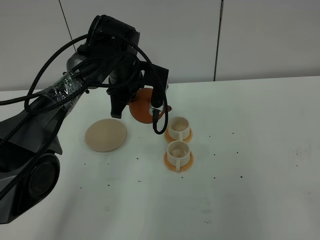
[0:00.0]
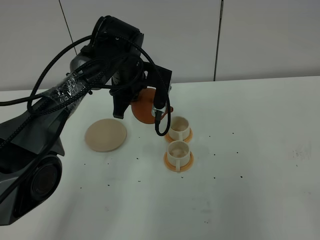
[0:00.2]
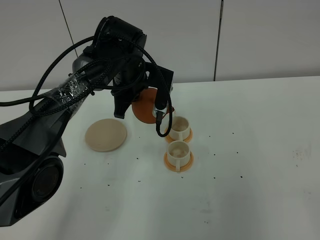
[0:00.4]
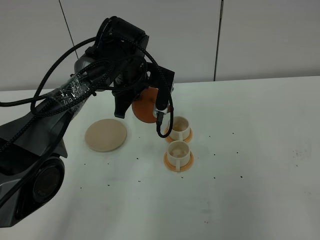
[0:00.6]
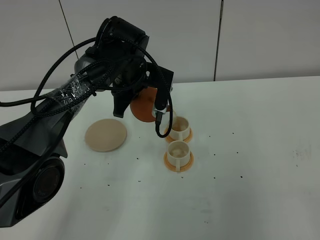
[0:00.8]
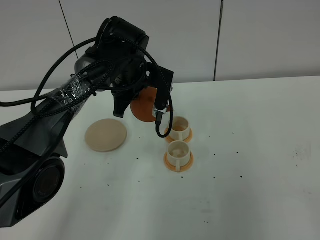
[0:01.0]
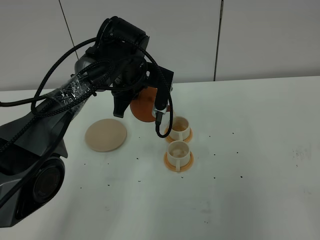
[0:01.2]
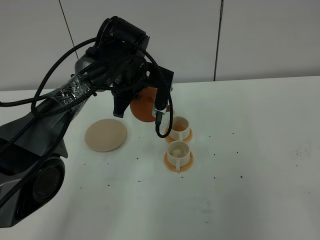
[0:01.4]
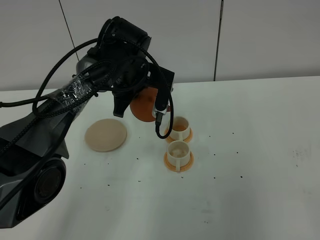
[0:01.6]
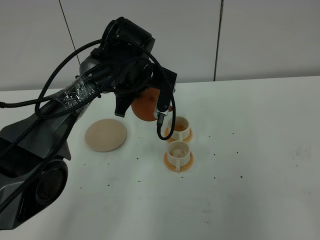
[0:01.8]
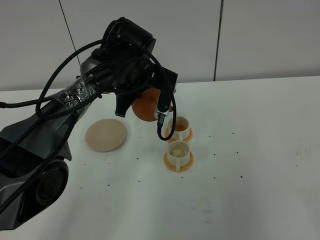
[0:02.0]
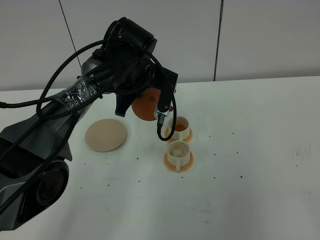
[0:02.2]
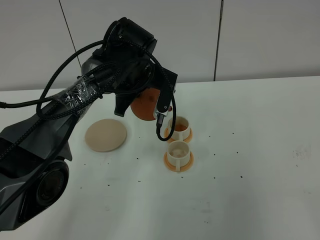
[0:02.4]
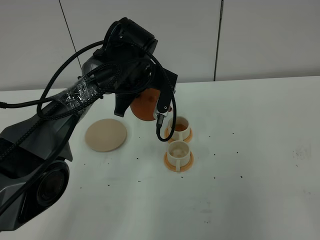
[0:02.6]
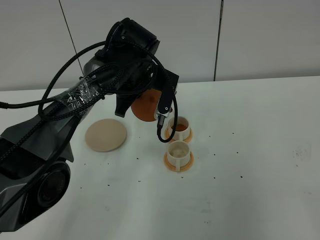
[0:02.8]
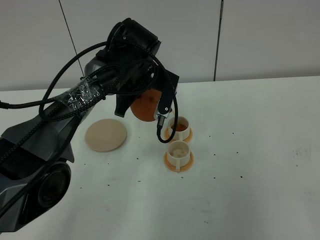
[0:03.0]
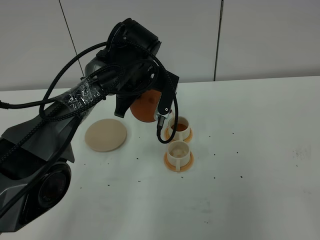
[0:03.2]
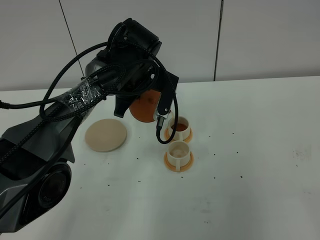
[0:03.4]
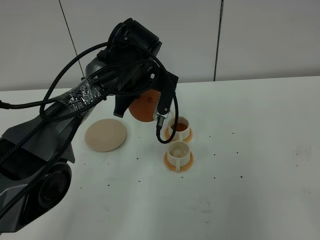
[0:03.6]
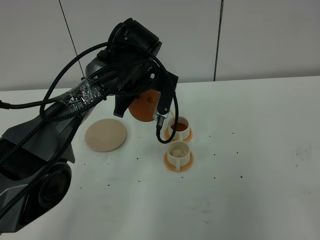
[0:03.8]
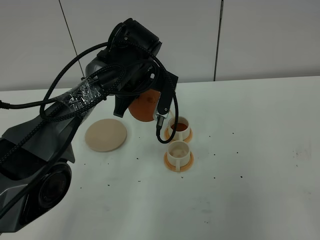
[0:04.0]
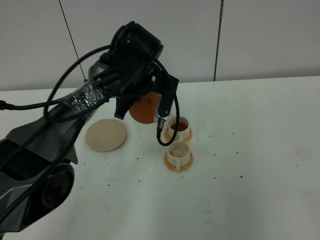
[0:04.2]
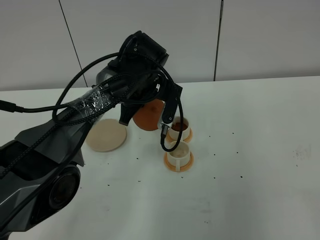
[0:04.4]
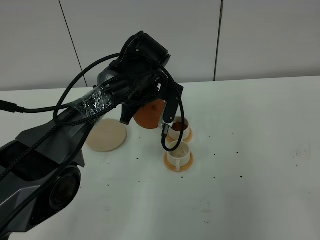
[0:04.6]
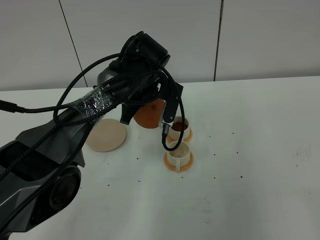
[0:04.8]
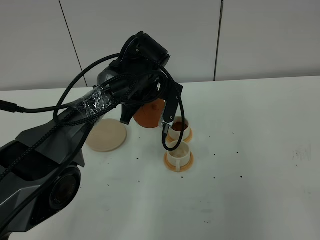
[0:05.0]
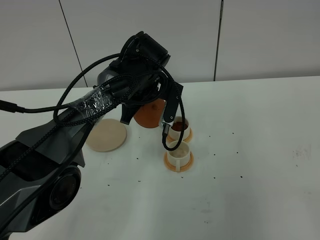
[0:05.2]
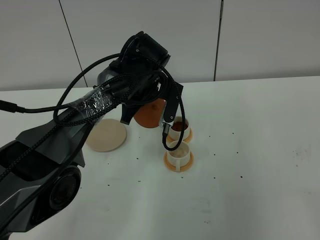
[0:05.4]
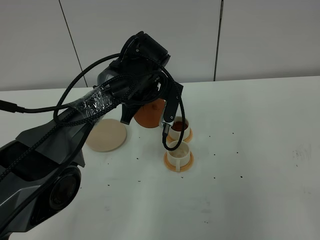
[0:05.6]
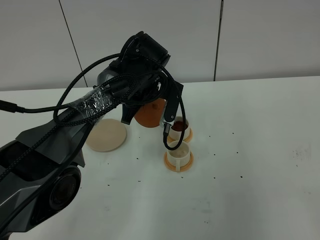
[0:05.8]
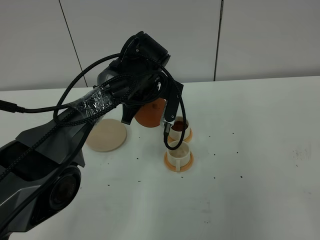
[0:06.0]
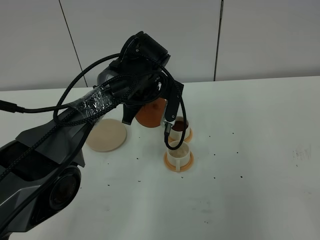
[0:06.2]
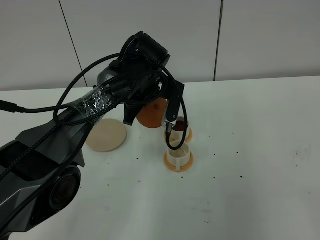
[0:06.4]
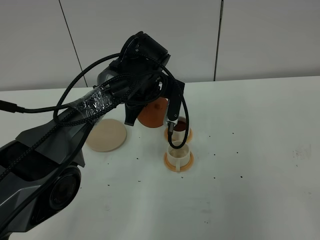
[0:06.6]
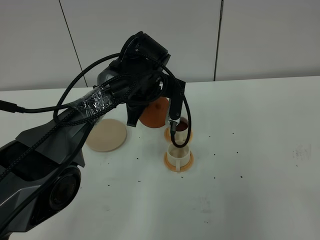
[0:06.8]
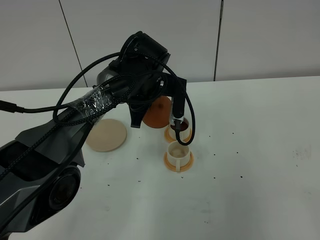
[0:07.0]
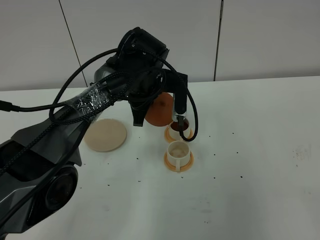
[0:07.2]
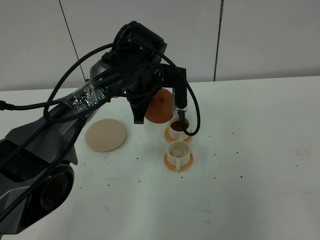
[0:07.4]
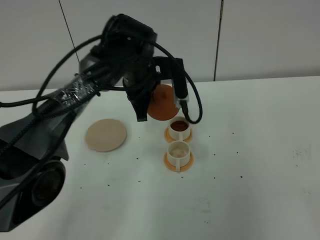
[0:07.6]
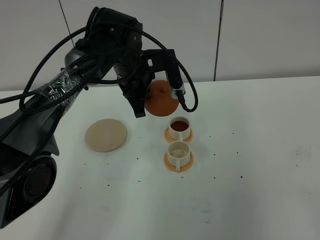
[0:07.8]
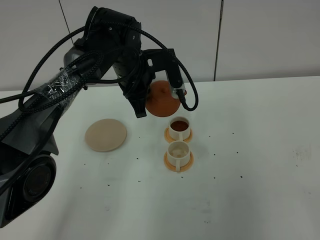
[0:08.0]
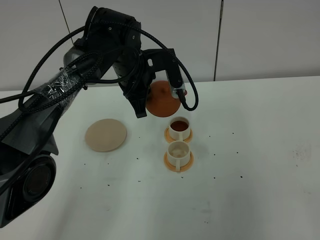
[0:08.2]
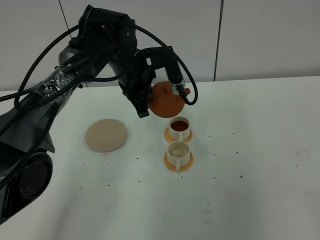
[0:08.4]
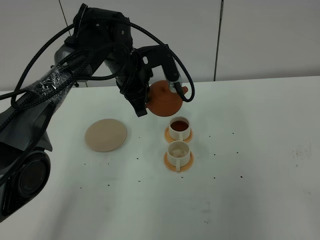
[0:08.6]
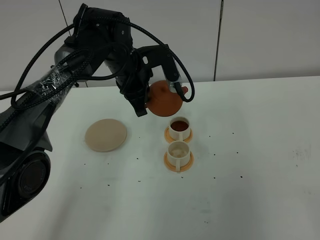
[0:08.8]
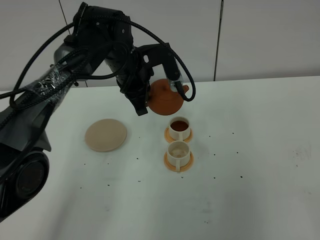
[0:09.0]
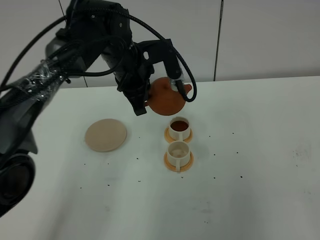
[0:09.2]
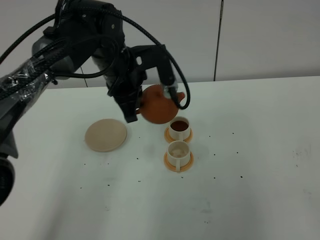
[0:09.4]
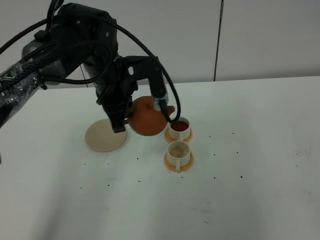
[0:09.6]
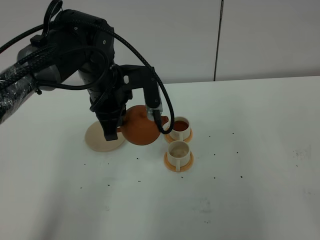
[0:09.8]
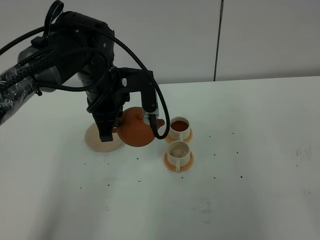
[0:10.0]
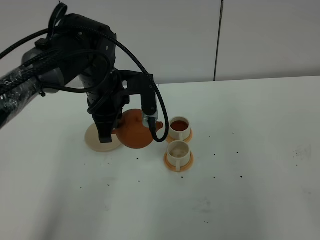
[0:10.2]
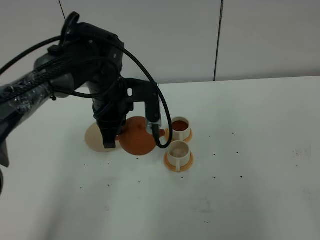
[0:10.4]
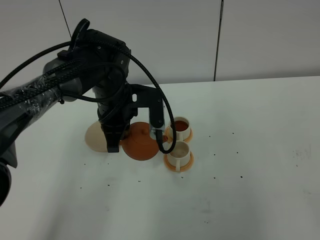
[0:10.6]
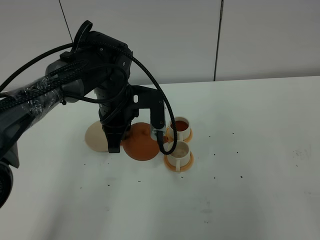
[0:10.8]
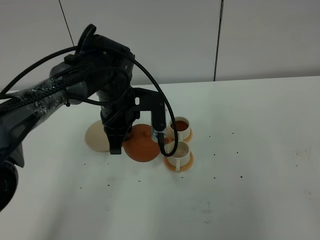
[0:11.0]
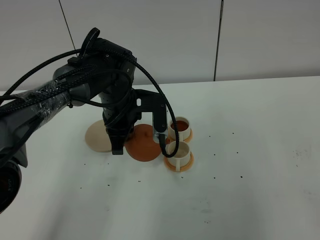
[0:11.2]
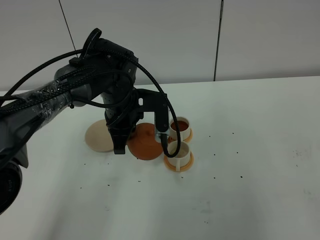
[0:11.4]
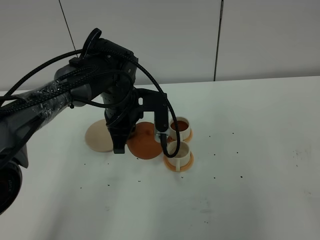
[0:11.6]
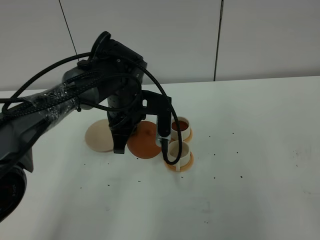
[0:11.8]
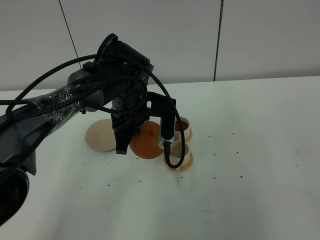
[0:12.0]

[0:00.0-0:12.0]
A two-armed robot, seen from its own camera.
Task of the whole recording: grasp the brown teapot and pour the tea into the two white teacups one by one, put the brown teapot back in its original place.
Step, 0:00.0 to 0:08.6: Pour tea into the teacup with the left gripper.
0:00.0 to 0:01.6: There are only small adjustments of the grippers.
0:01.6 to 0:03.0: The two grippers keep their place.
0:03.0 to 0:04.4: The grippers make only small movements.
0:04.4 to 0:06.0: Neither gripper changes place.
0:07.6 to 0:09.0: There are only small adjustments of the grippers.
0:09.0 to 0:10.4: The left gripper moves backward, roughly 5 cm.
0:10.4 to 0:12.0: There are only small adjustments of the grippers.

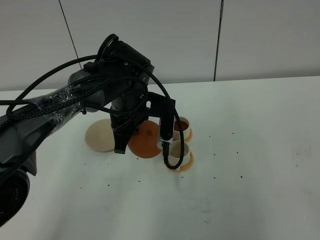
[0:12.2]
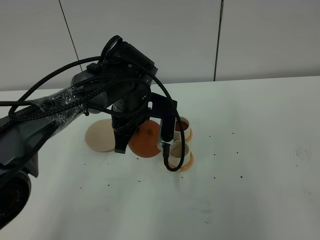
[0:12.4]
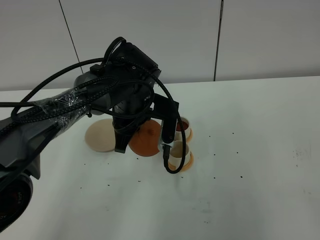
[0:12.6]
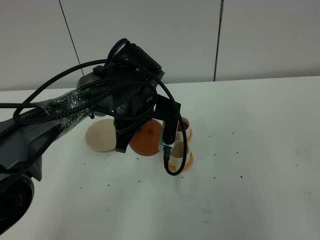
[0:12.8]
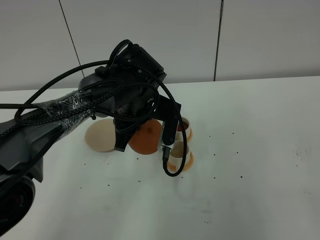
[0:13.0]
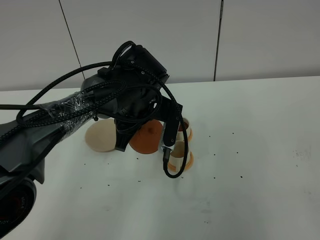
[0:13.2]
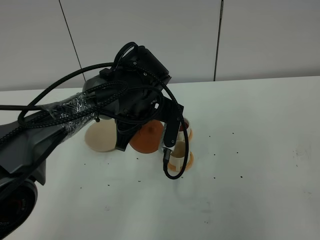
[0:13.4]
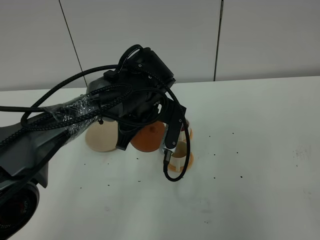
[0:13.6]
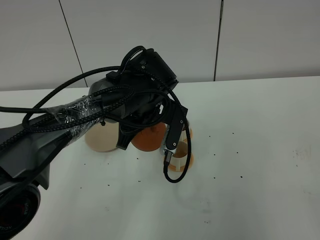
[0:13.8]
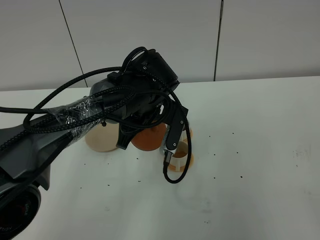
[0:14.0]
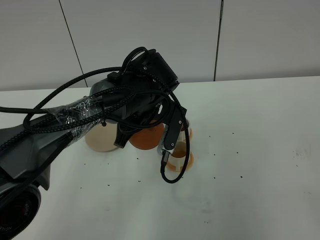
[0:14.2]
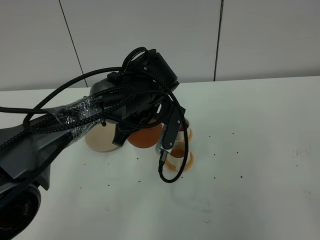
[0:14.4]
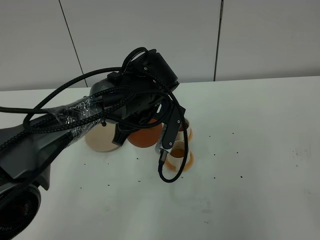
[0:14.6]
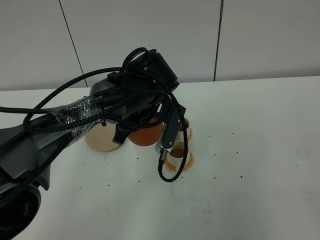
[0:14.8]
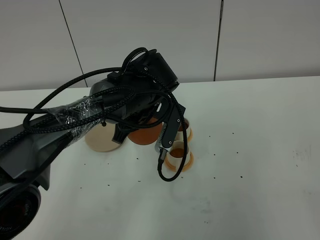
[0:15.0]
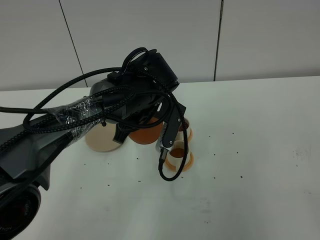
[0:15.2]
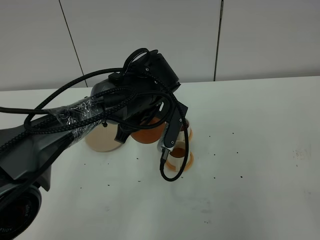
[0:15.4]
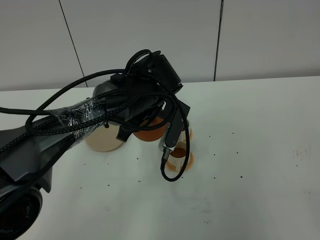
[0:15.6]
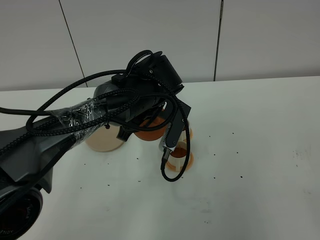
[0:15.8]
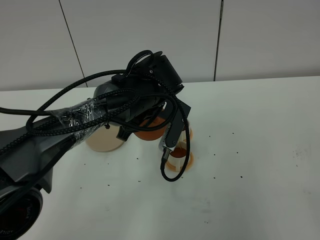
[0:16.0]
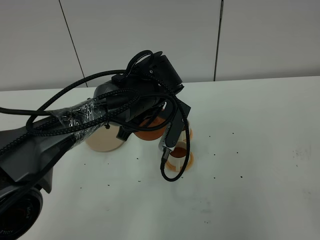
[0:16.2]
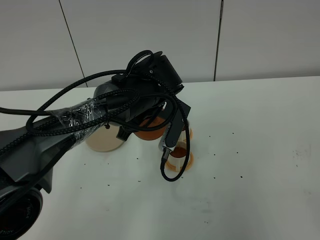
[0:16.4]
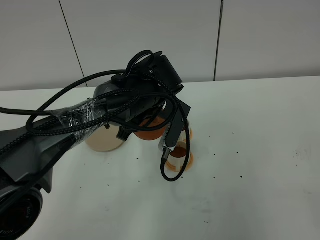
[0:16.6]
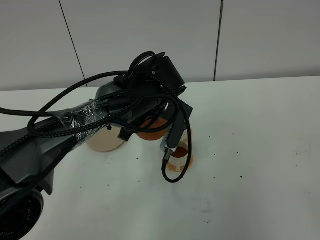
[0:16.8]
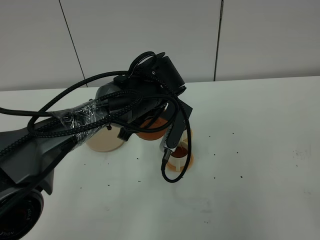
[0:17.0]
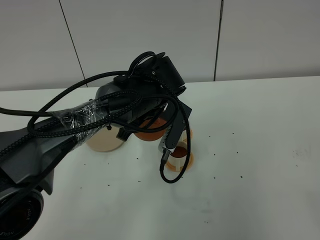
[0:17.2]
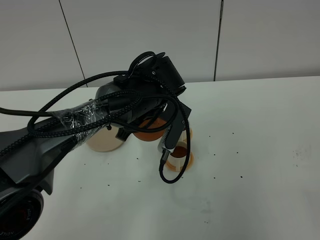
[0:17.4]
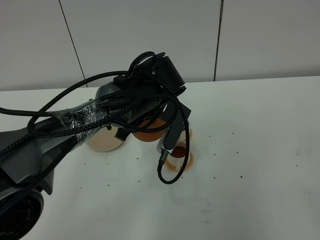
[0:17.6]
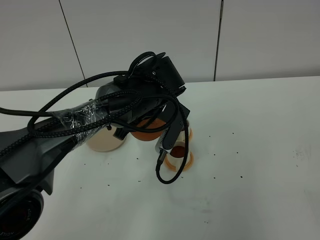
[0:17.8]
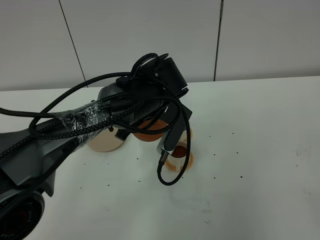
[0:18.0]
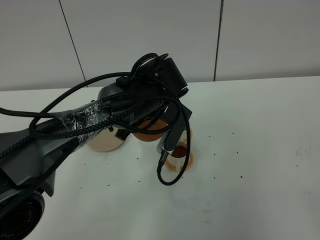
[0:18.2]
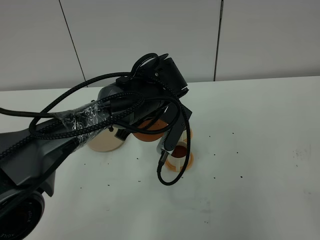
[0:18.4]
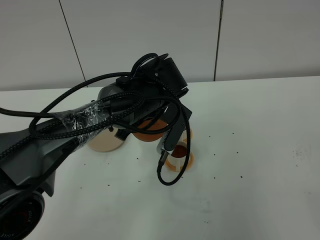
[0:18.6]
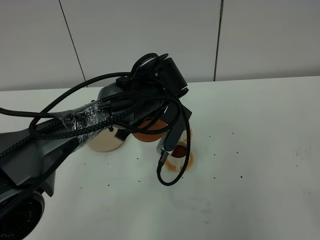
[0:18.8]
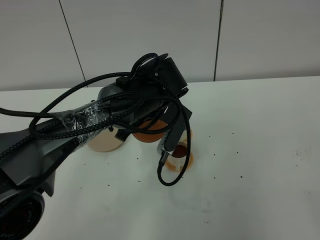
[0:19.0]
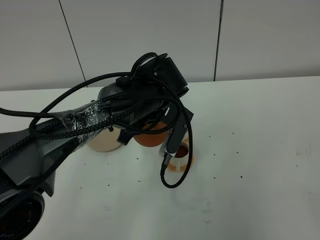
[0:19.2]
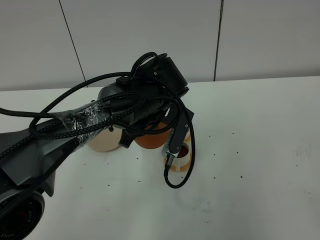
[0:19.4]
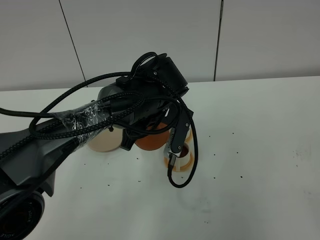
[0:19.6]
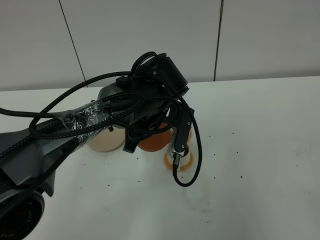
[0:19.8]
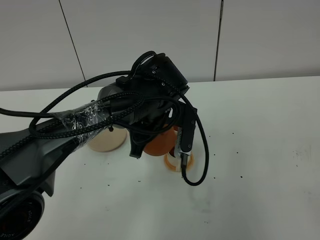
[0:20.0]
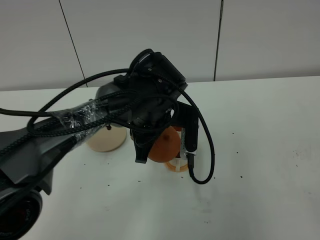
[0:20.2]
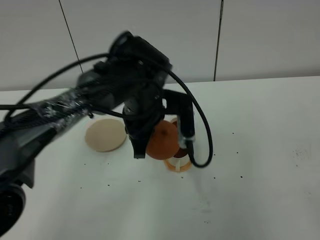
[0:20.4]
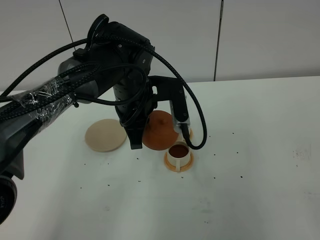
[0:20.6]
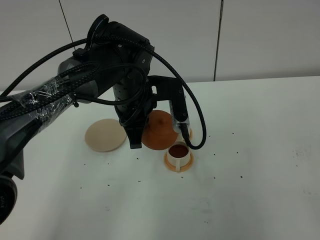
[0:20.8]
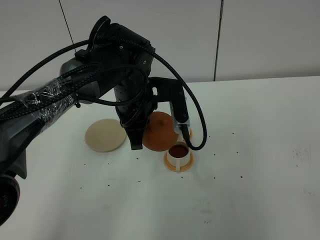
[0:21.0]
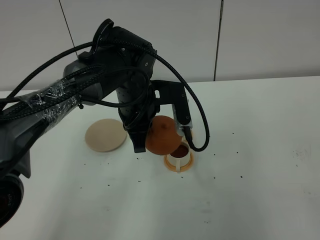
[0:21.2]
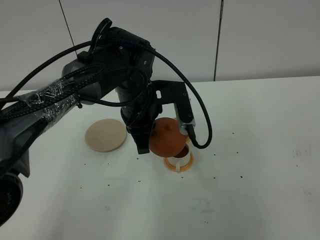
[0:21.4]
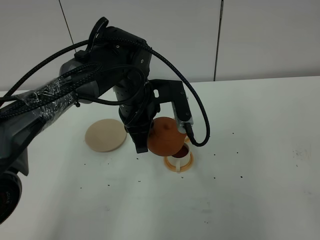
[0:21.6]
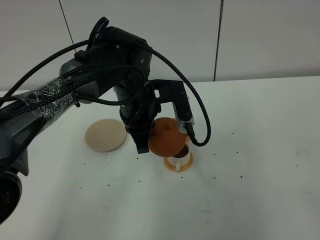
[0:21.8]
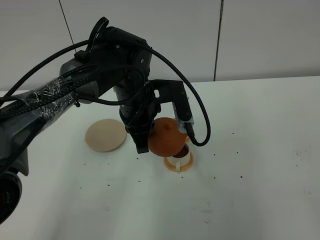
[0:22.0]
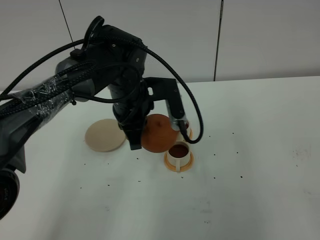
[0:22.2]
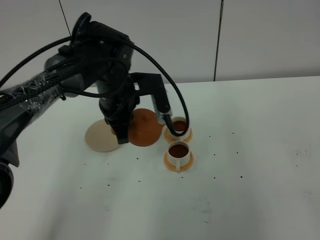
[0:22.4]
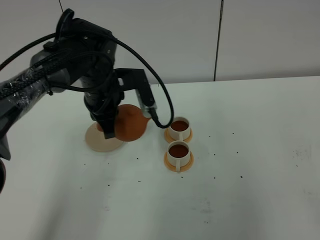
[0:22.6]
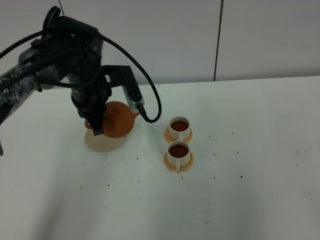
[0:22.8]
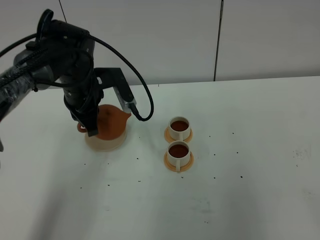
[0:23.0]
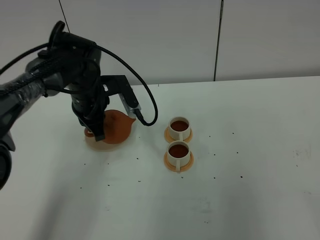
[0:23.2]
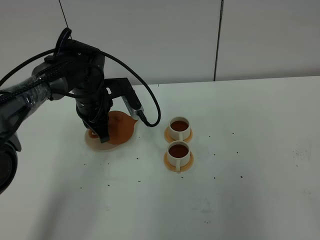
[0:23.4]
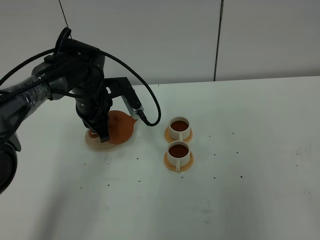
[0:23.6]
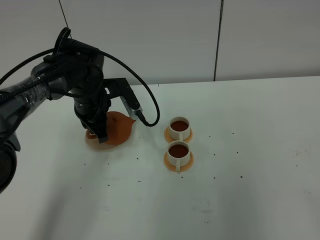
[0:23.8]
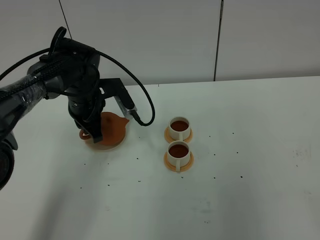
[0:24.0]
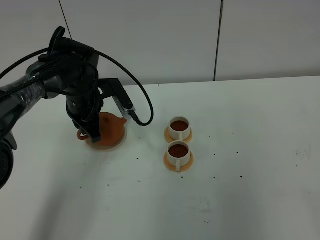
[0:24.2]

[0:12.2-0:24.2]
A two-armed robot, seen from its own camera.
Task of the whole recording: grasp the brown teapot and pour the tea into the two white teacups one by one, put the brown teapot back in its original place.
Step, 0:12.2 to 0:21.0: Pour tea into the teacup with the left gripper.
0:12.2 to 0:13.8: The grippers stay close to where they were, moving slightly.
0:13.8 to 0:15.2: The grippers move only a little.
0:15.2 to 0:16.6: Both grippers stay about where they are.
0:16.6 to 0:18.2: Neither gripper changes place.
0:18.2 to 0:19.8: There are only small adjustments of the grippers.
0:21.2 to 0:22.6: The left gripper travels to the left by some 5 cm.
0:22.6 to 0:24.2: The left gripper moves downward and to the left, about 5 cm.
